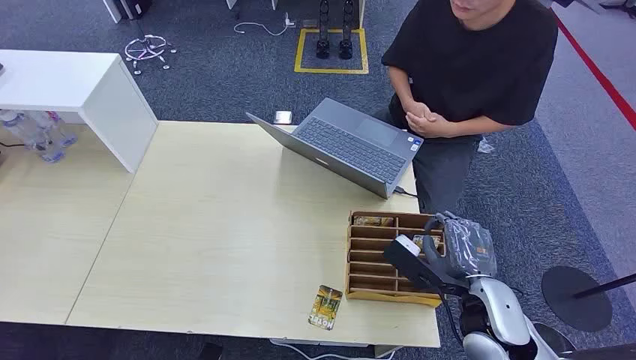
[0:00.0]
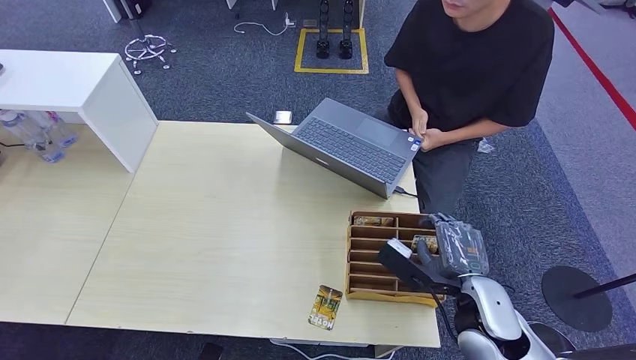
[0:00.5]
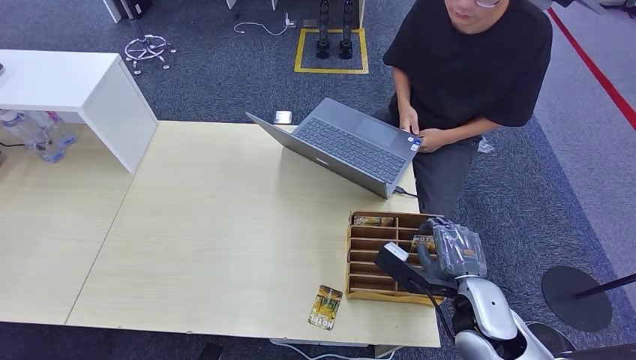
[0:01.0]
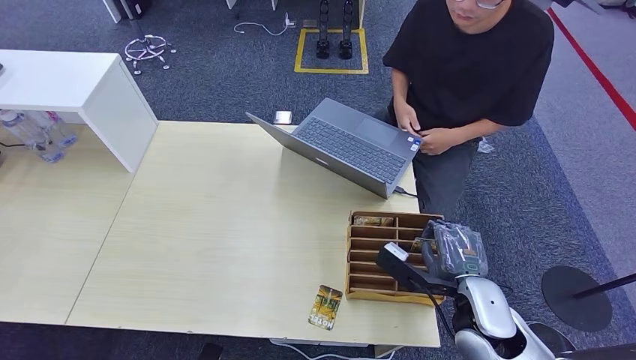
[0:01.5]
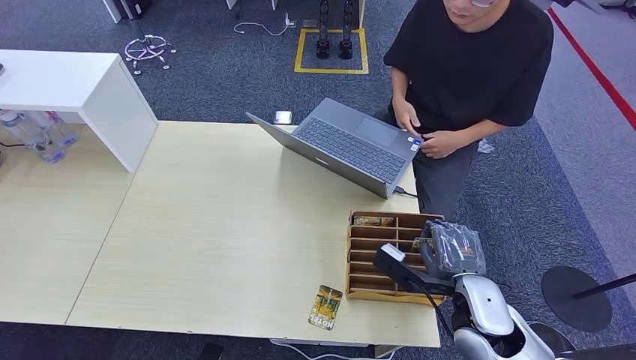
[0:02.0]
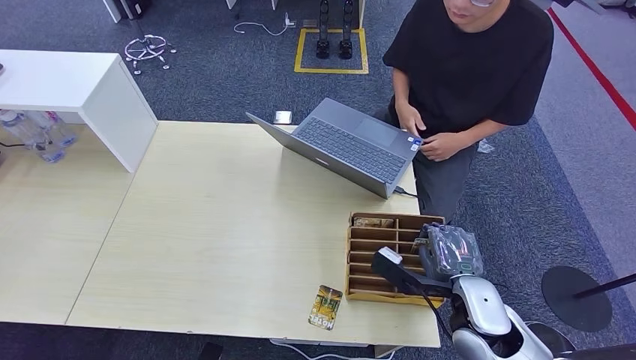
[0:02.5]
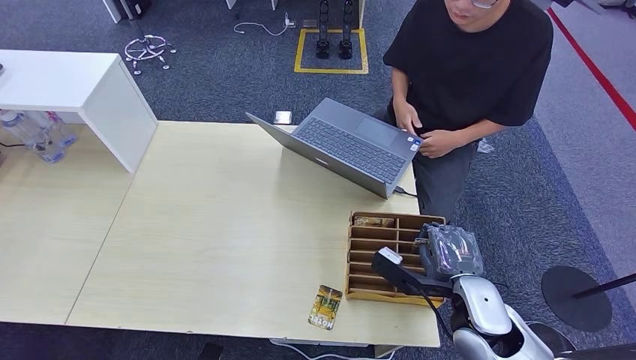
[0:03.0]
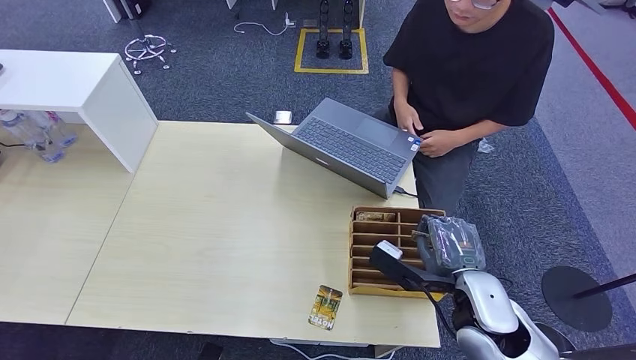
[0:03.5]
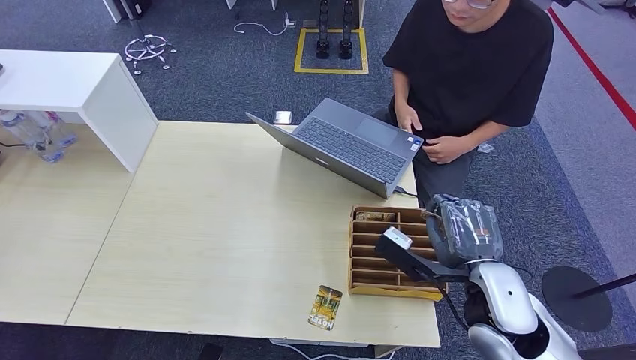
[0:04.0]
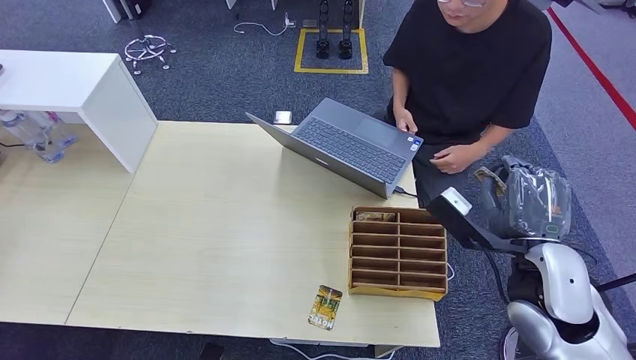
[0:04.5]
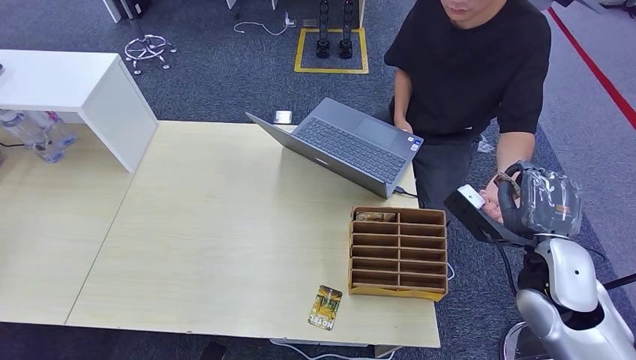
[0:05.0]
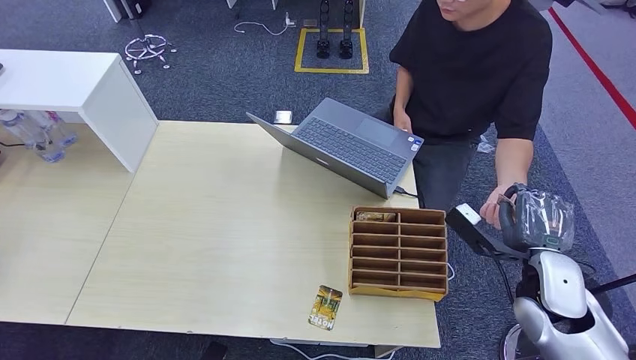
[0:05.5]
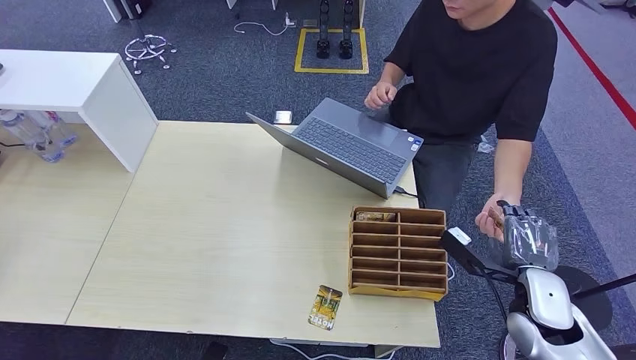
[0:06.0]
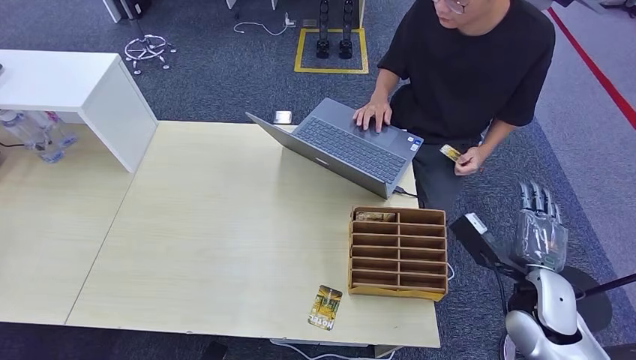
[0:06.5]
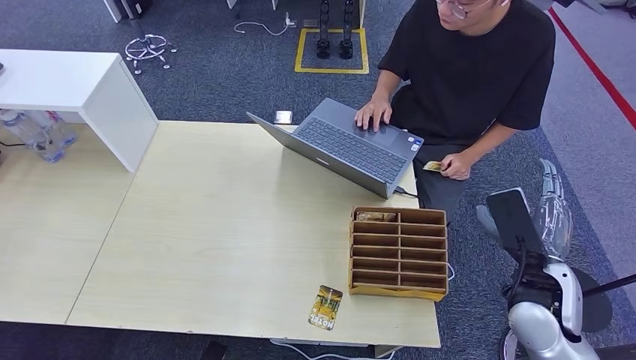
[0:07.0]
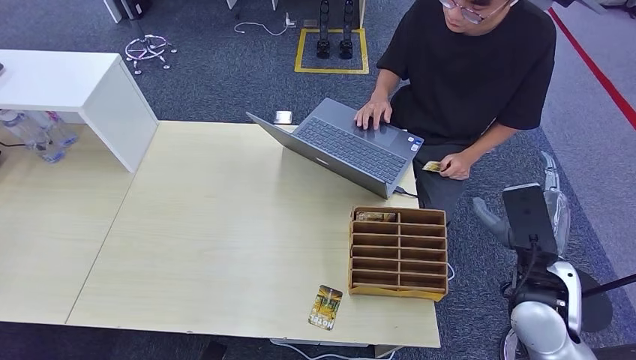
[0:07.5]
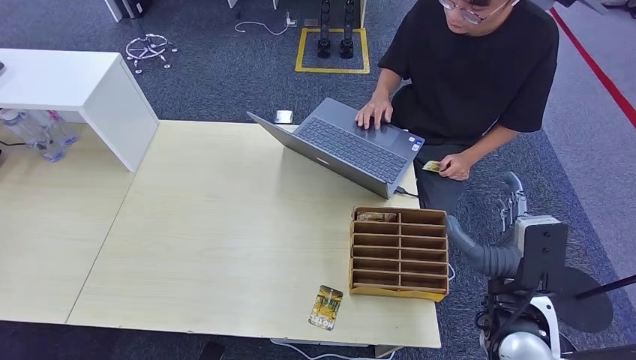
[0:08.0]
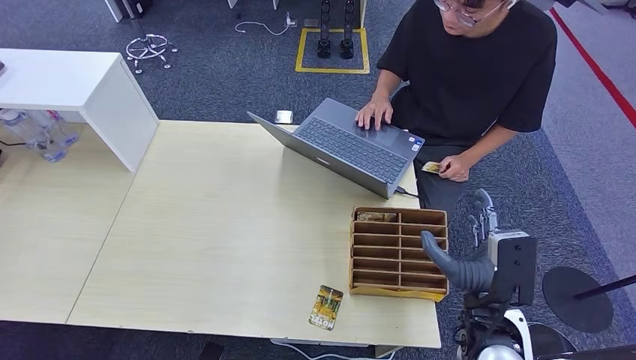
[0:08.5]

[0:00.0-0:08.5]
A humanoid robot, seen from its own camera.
Step, 0:00.0 to 0:03.5: Pick up the key card from the card box.
Step, 0:04.0 to 0:08.5: Hand the key card to the target.
0:02.0 to 0:04.0: The right hand moves upward, roughly 5 cm.
0:04.0 to 0:06.5: The right hand shifts some 10 cm to the right and downward.
0:06.5 to 0:08.5: The right hand moves to the left and backward, roughly 10 cm.

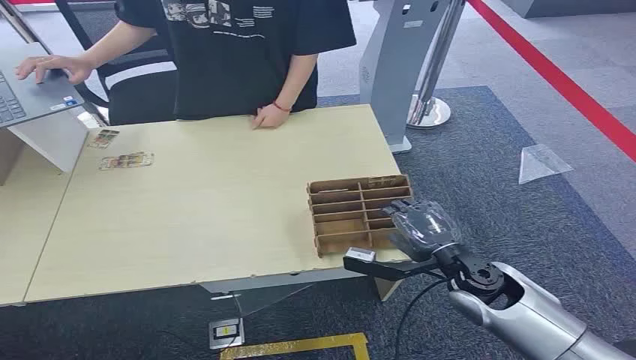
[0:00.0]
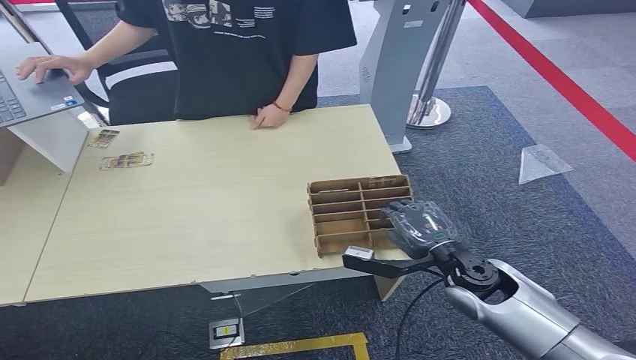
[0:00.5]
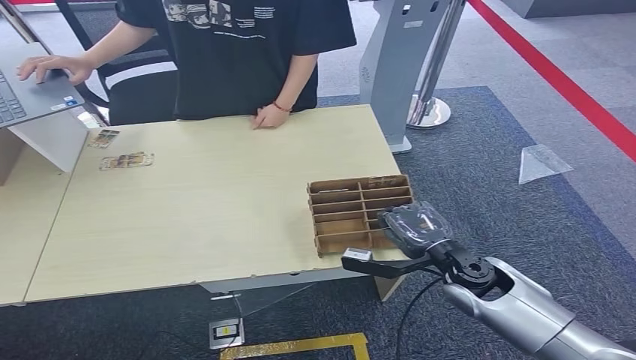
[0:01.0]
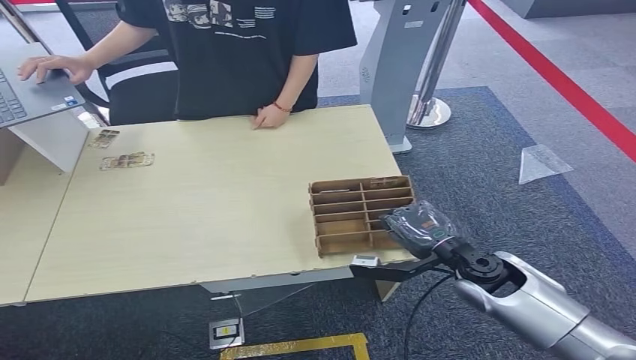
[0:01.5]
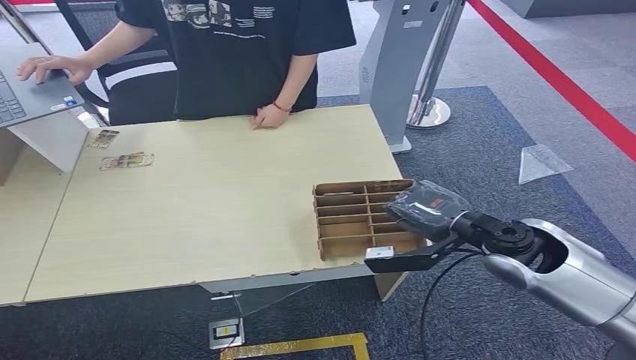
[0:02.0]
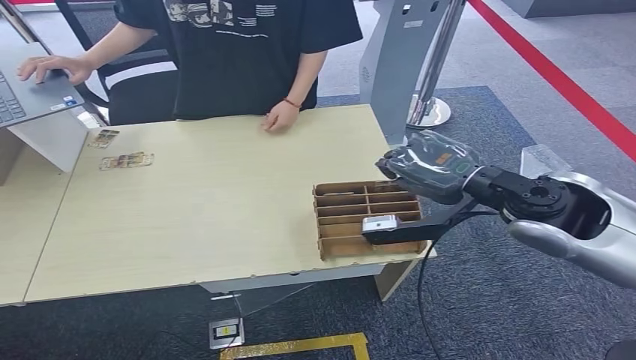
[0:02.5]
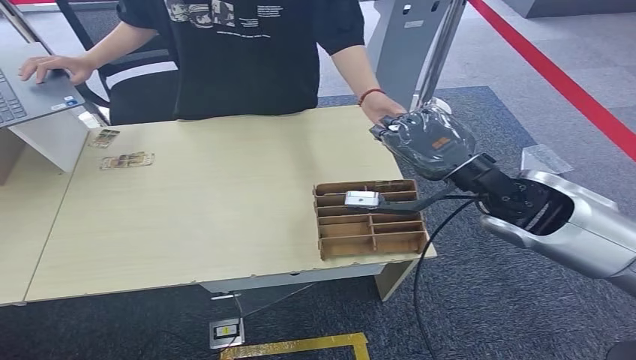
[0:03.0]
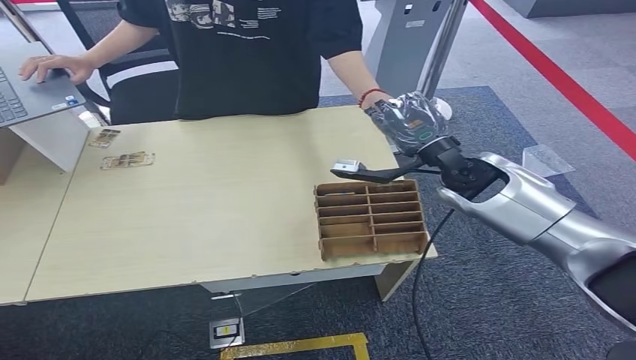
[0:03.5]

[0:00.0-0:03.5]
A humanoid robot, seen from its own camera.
Step, 0:00.0 to 0:02.5: Pick up the key card from the card box.
Step, 0:03.0 to 0:03.5: Hand the key card to the target.
0:02.0 to 0:03.5: The right hand goes roughly 10 cm forward and upward.
